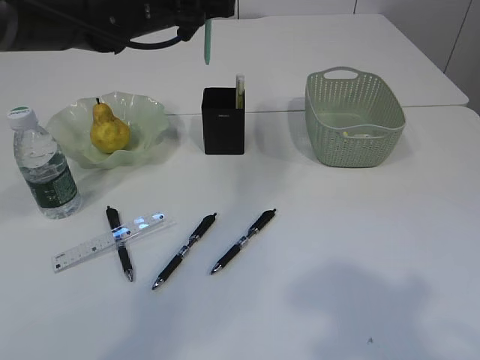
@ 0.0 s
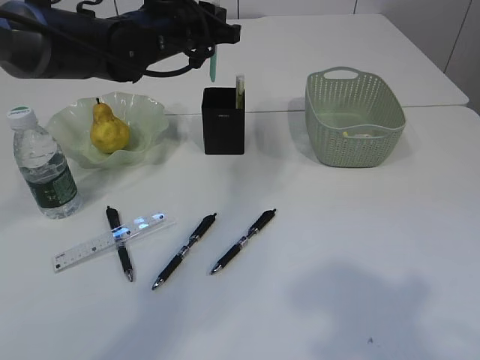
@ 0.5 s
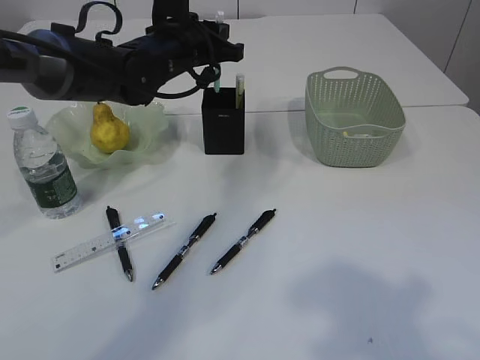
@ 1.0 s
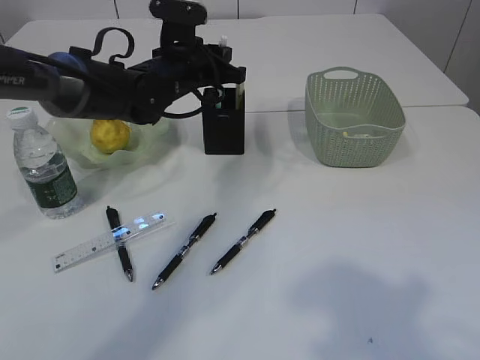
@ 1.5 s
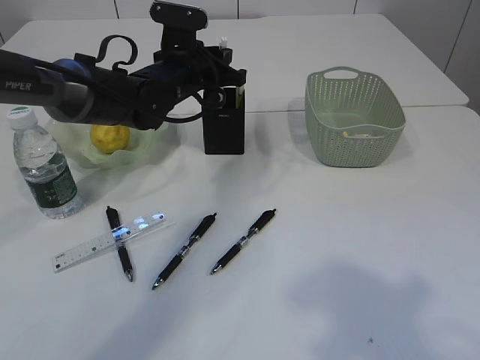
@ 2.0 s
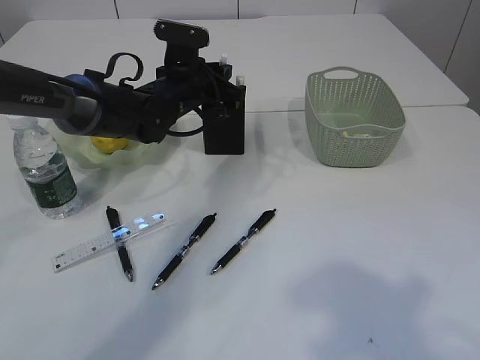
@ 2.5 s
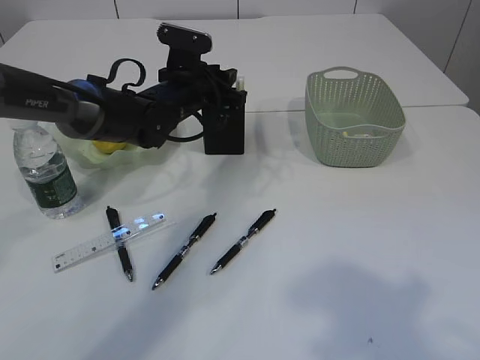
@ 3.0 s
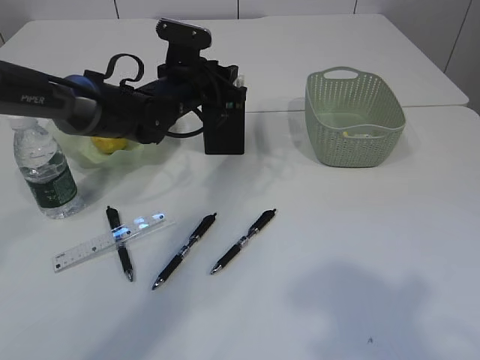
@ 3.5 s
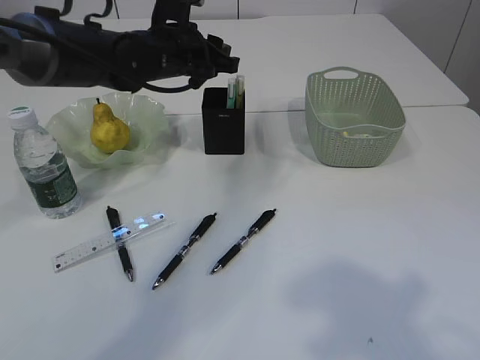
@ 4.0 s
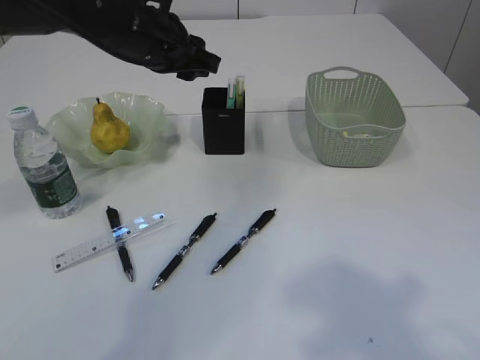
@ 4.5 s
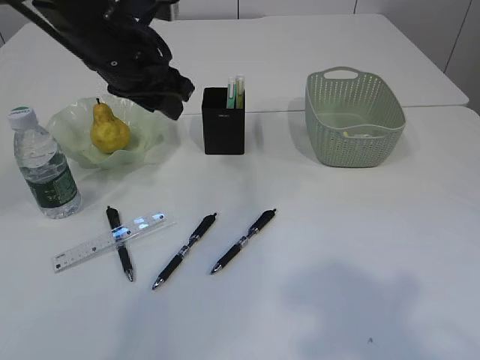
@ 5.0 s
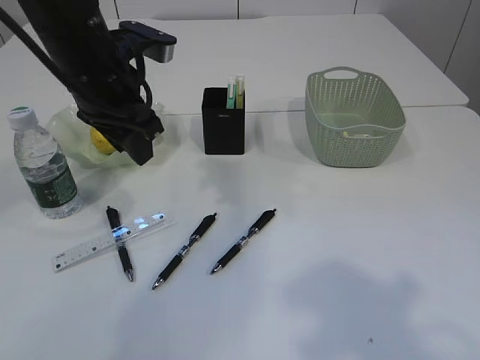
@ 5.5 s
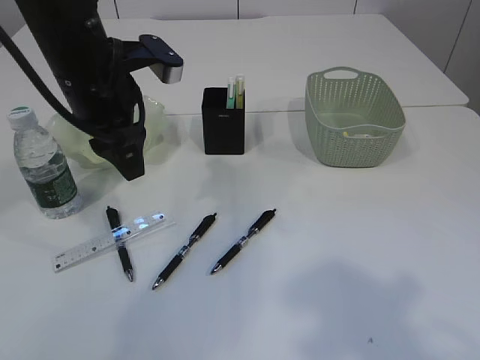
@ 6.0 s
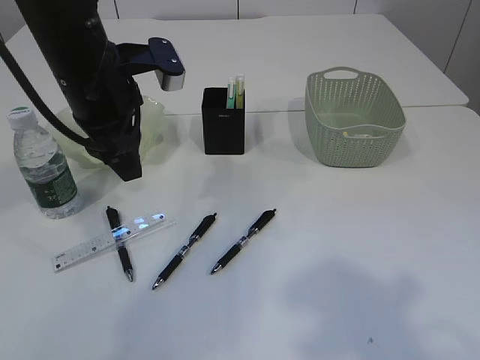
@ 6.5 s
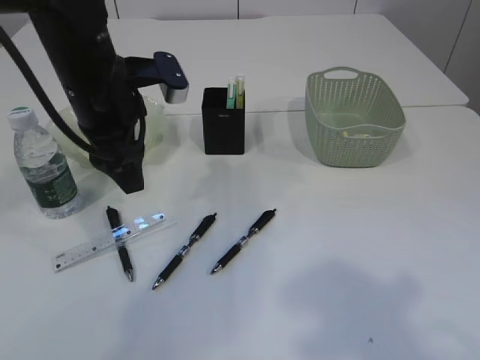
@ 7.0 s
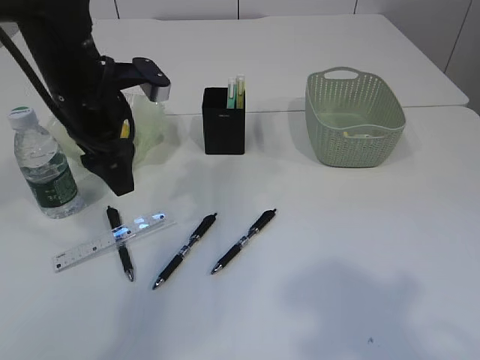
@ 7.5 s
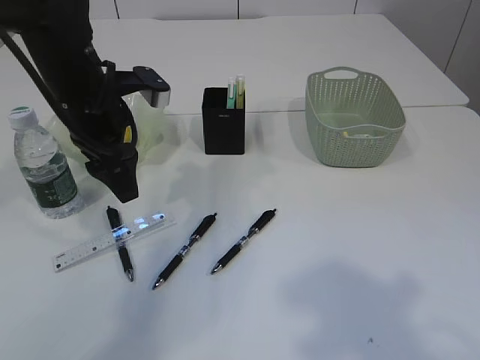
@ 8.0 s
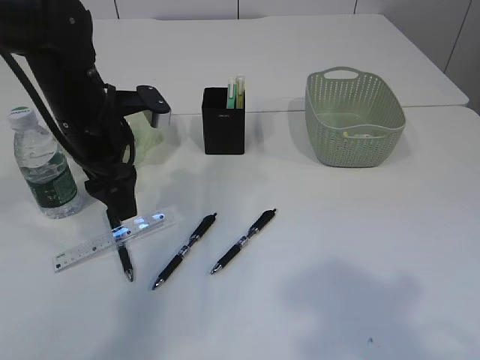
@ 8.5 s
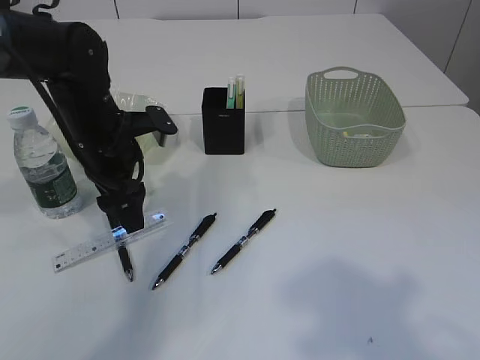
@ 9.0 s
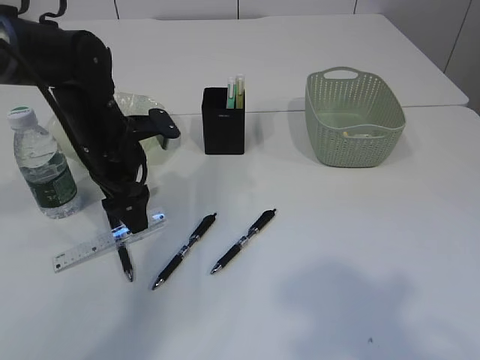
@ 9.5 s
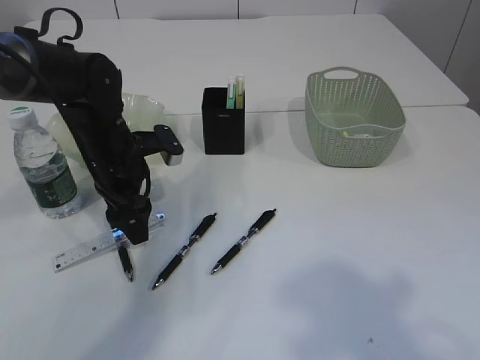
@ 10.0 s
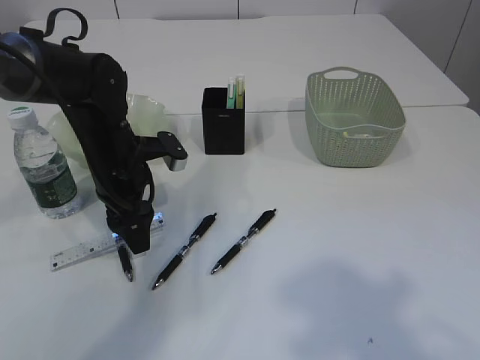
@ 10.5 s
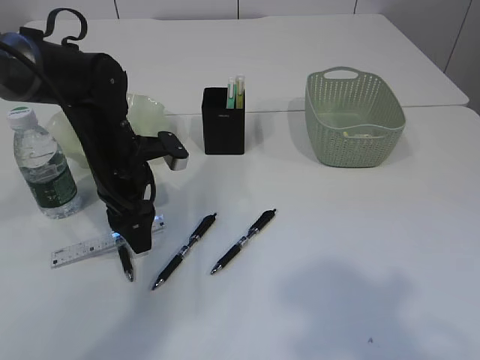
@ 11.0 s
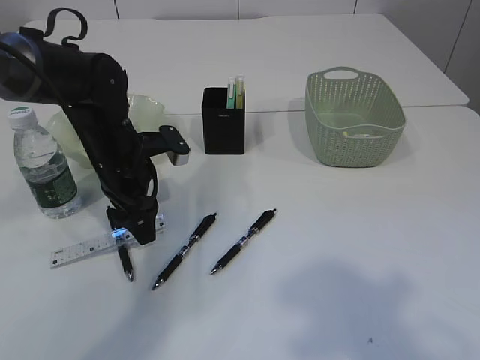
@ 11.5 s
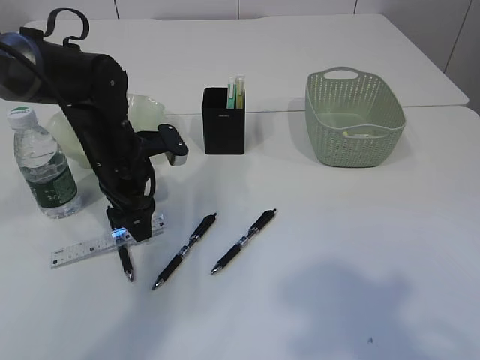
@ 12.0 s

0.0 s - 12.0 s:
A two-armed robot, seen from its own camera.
Step, 0.0 s - 4.0 s: Place the blue knife into the pen holder.
0.0 s - 2.0 s: The left gripper moves downward, approximately 10 cm.
2.0 s - 4.0 s: The left gripper opens up.
4.0 s - 6.0 s: The left gripper goes some 10 cm backward.
6.0 s - 8.0 s: The left gripper moves approximately 5 cm.
8.0 s - 10.0 s: The left gripper heads downward, covering about 10 cm.
10.0 s - 12.0 s: The two grippers keep their place.

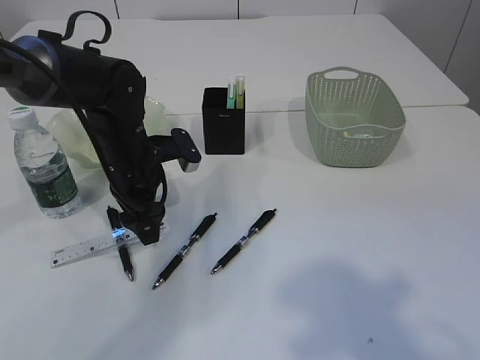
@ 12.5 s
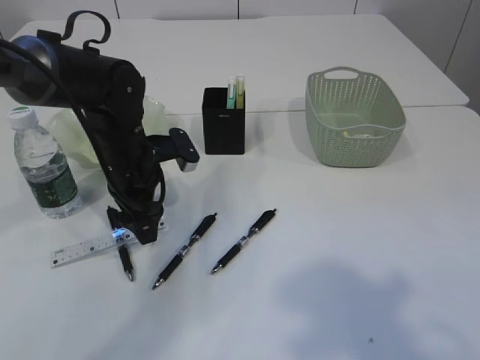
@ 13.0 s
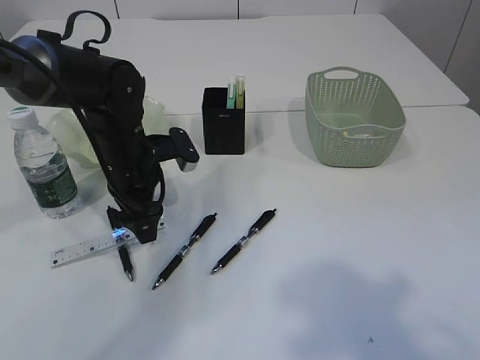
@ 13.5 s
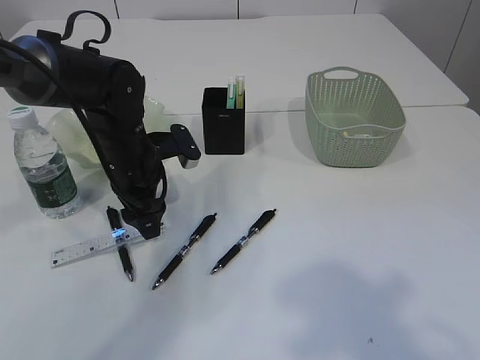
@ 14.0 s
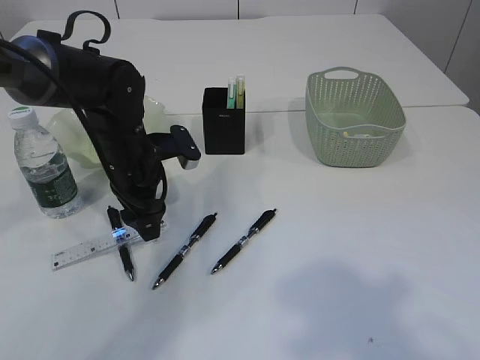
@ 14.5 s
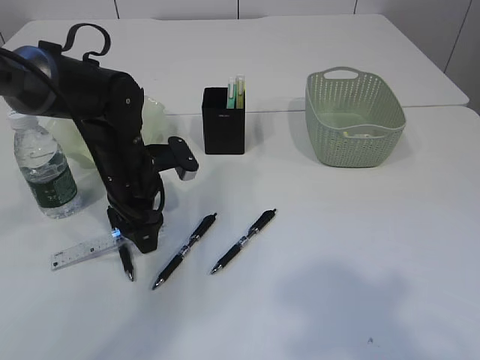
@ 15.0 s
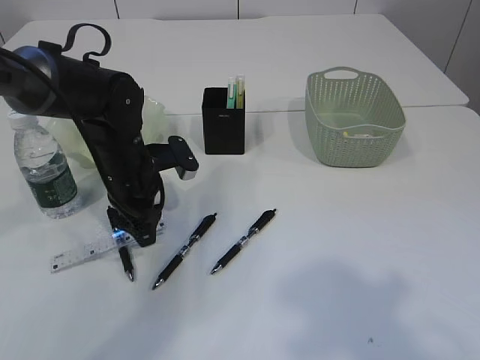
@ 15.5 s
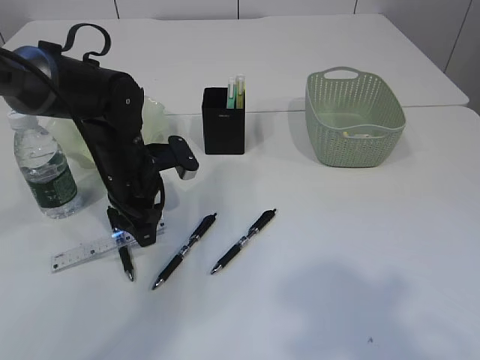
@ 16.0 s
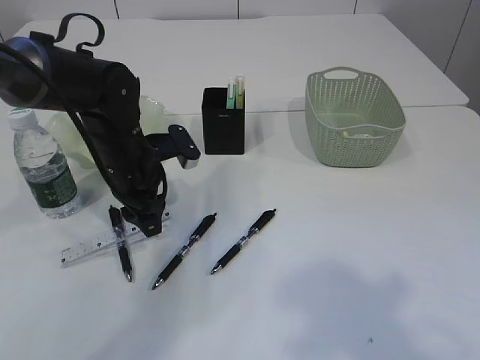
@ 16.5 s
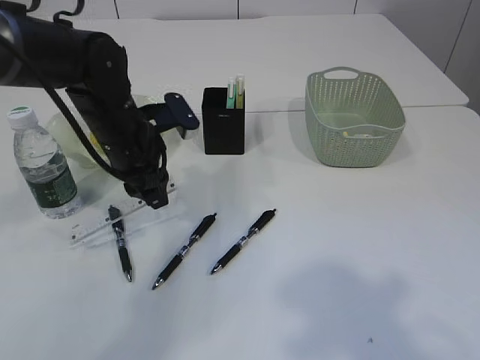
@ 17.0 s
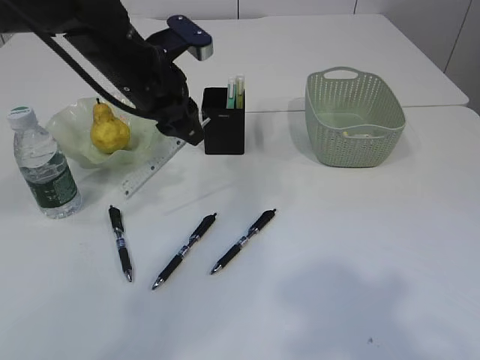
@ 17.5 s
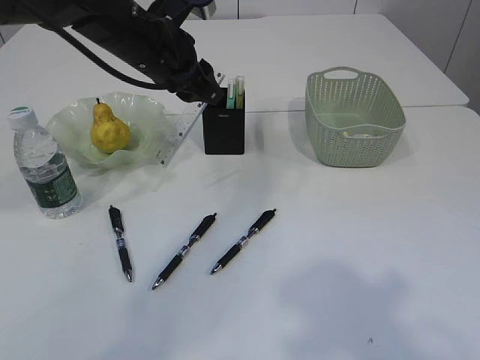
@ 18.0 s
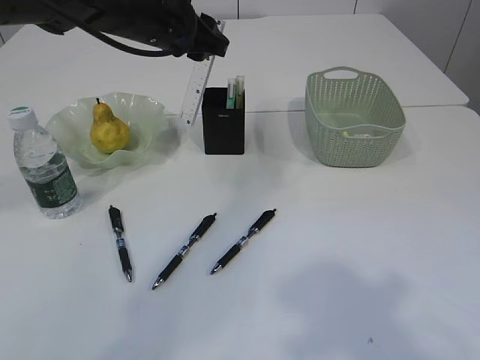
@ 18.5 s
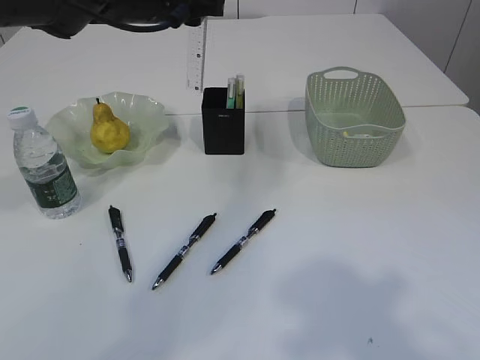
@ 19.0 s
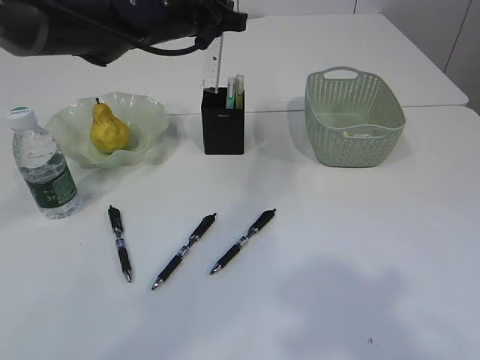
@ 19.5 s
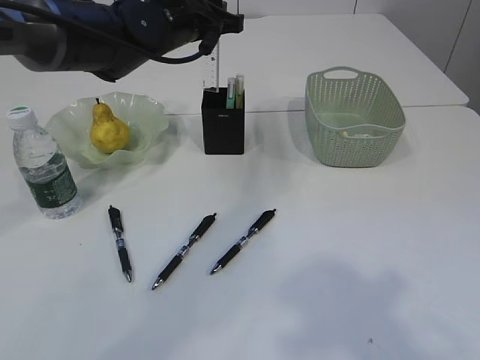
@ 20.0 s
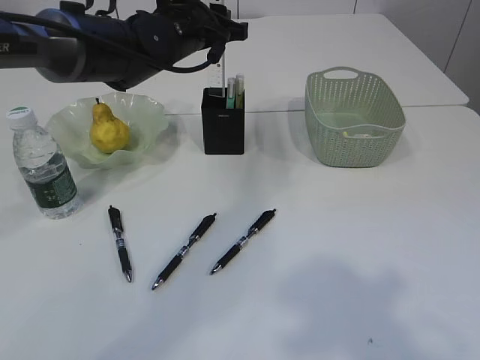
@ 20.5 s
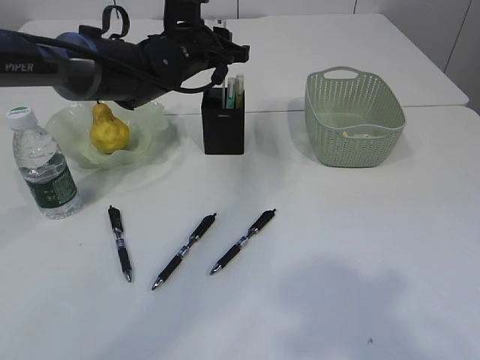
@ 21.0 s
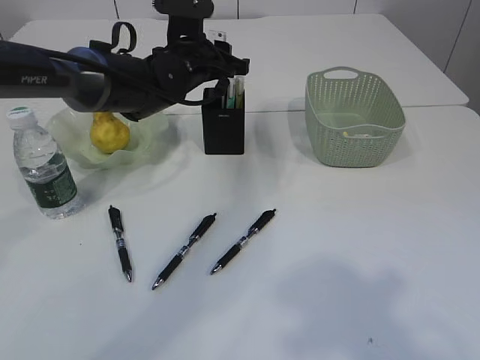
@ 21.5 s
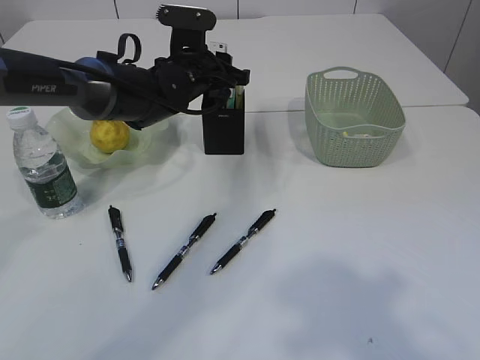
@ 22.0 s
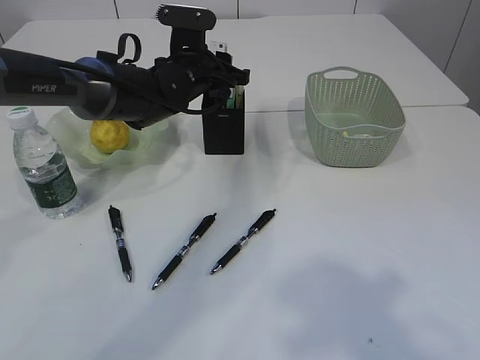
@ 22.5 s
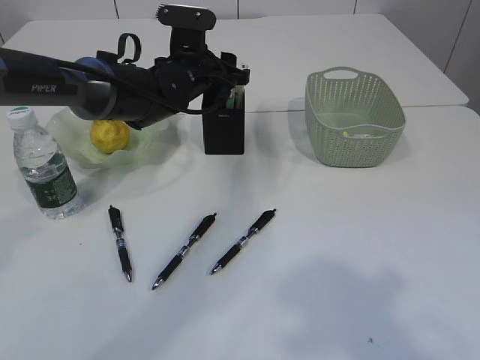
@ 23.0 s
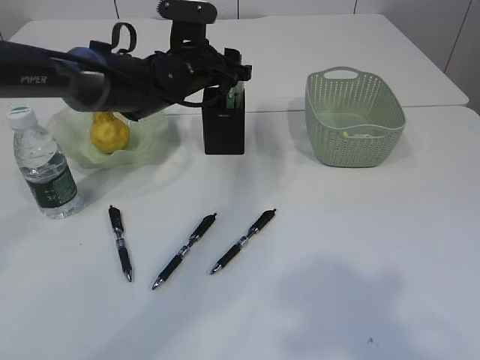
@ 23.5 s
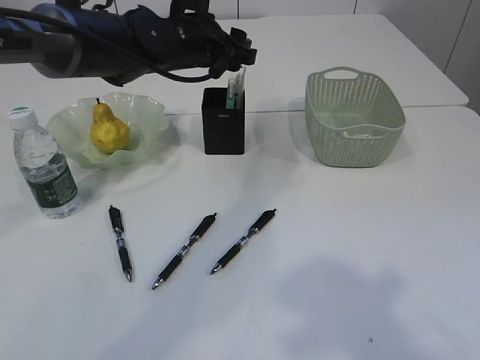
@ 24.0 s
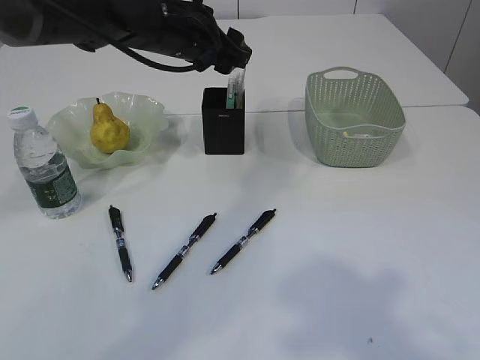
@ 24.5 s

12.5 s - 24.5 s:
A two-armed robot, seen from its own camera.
Step, 12.5 s - 17.5 s: pick up the ruler.
12.5 s - 14.5 s: Both grippers stay put.
14.5 s - 16.5 s: The left gripper closes up.
16.5 s - 18.5 s: The left gripper moves upward, approximately 15 cm.
18.5 s - 20.5 s: The left gripper changes place by approximately 5 cm.
20.5 s - 22.5 s: The left gripper goes roughly 5 cm downward.
22.5 s - 24.5 s: The left gripper shifts approximately 10 cm upward, and opens its fingers.

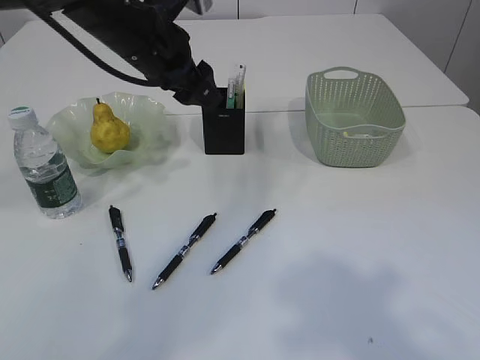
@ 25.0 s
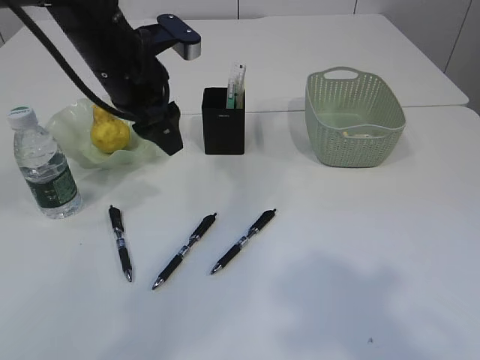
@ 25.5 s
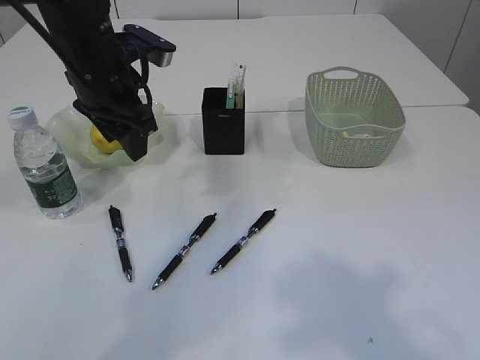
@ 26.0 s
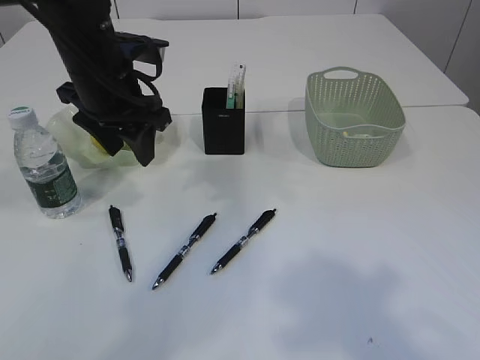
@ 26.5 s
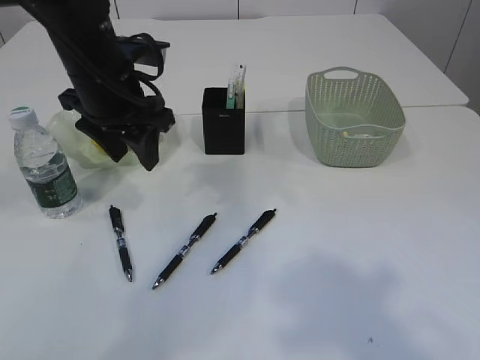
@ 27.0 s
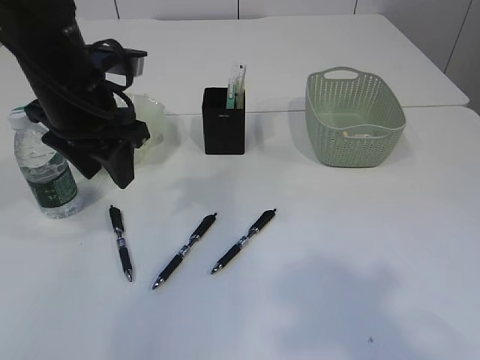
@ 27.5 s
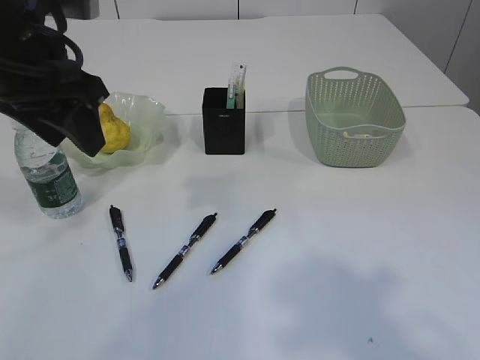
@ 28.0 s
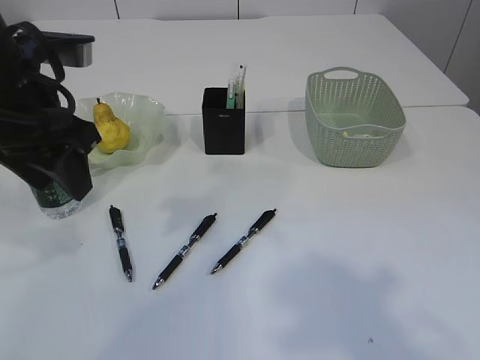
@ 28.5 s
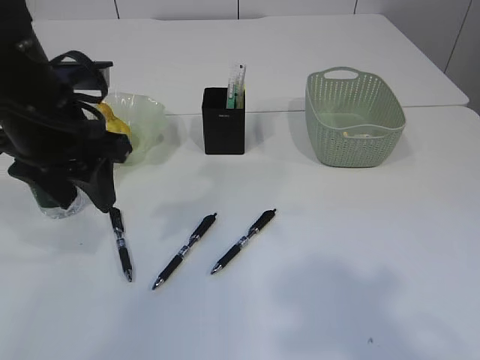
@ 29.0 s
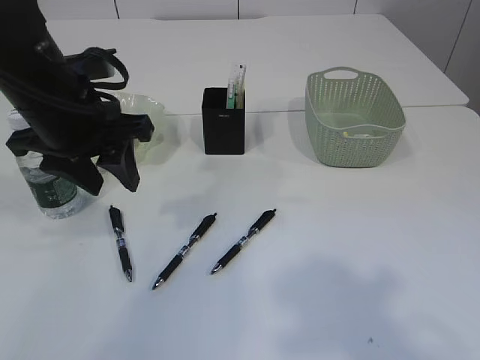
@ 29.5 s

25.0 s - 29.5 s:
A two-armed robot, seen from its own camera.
25.0 s - 27.0 s: The left gripper ends up some 5 cm from where it was.
27.0 s - 29.5 s: The left gripper shifts roughly 5 cm backward.
